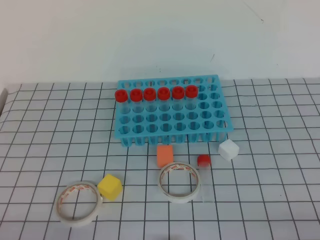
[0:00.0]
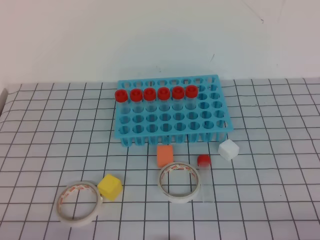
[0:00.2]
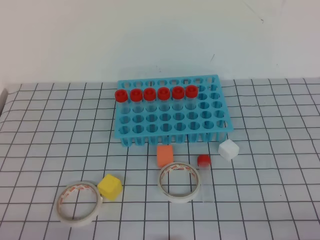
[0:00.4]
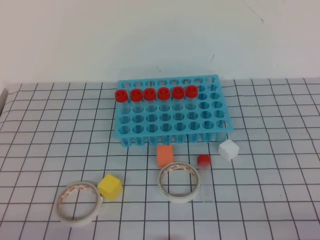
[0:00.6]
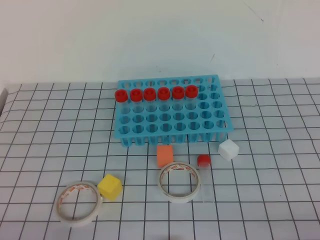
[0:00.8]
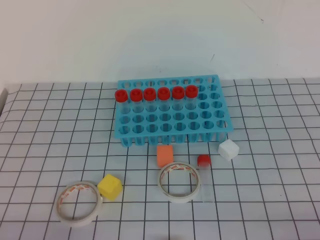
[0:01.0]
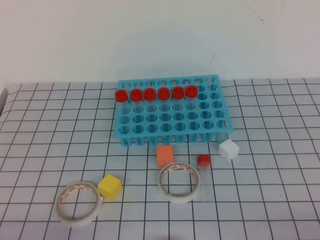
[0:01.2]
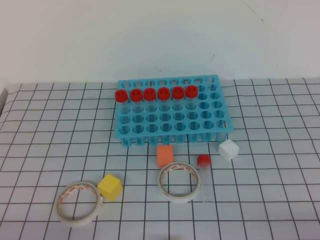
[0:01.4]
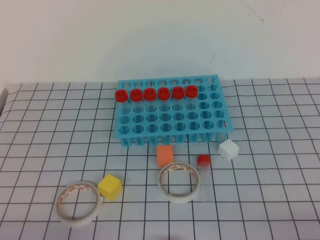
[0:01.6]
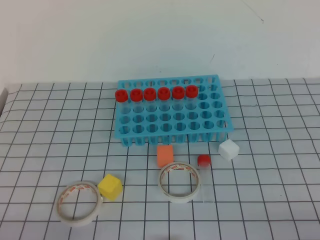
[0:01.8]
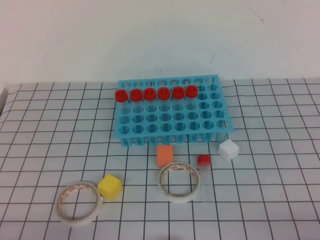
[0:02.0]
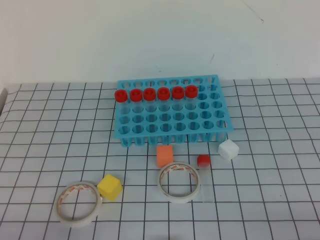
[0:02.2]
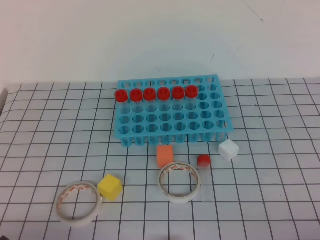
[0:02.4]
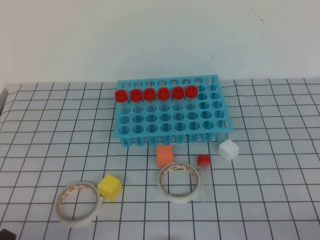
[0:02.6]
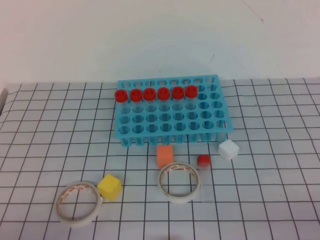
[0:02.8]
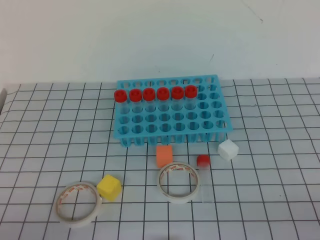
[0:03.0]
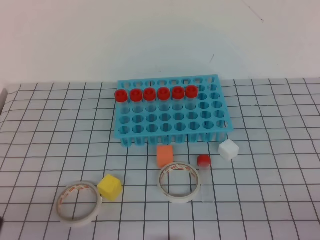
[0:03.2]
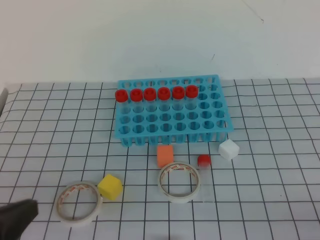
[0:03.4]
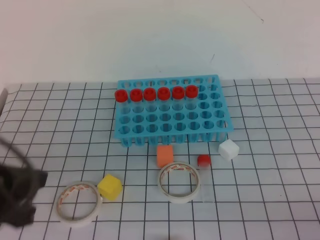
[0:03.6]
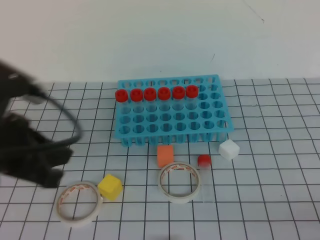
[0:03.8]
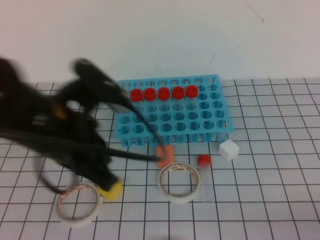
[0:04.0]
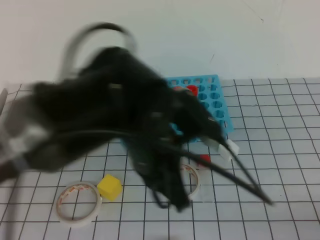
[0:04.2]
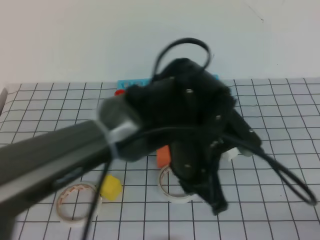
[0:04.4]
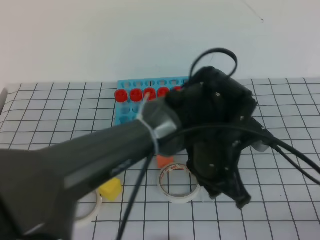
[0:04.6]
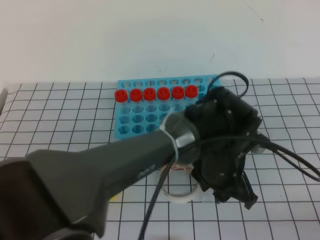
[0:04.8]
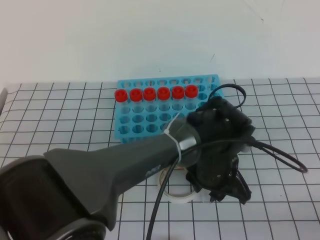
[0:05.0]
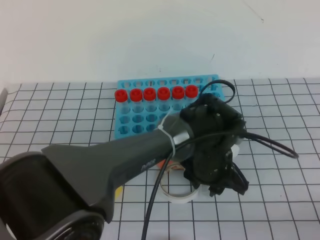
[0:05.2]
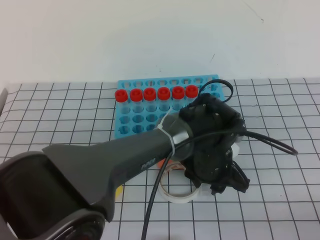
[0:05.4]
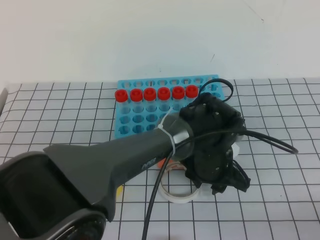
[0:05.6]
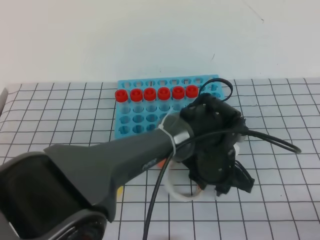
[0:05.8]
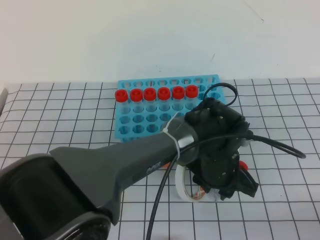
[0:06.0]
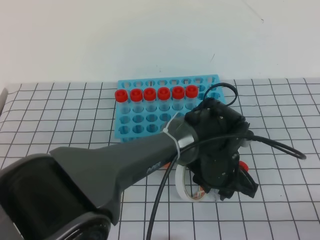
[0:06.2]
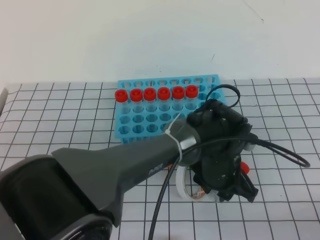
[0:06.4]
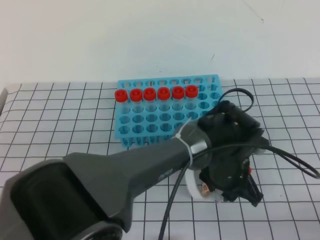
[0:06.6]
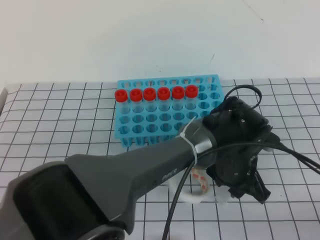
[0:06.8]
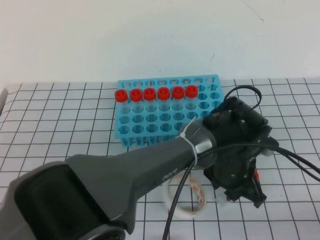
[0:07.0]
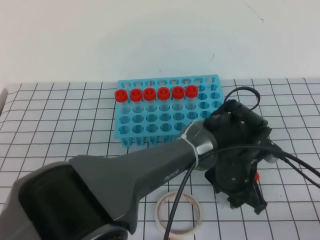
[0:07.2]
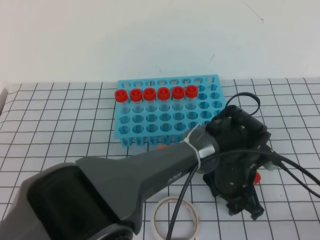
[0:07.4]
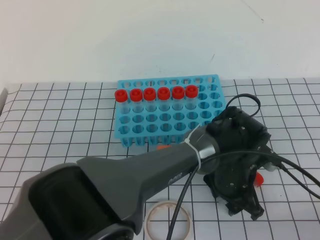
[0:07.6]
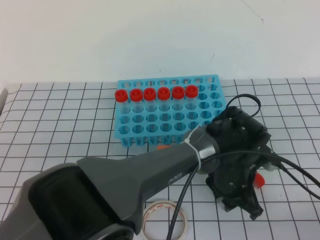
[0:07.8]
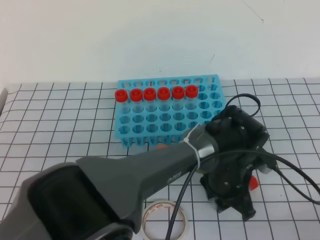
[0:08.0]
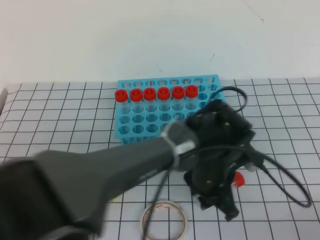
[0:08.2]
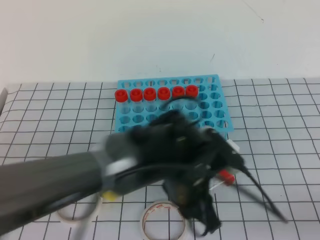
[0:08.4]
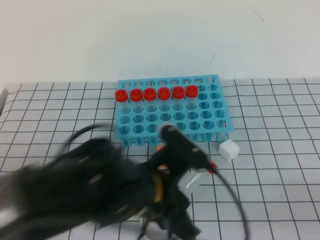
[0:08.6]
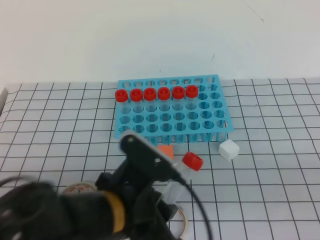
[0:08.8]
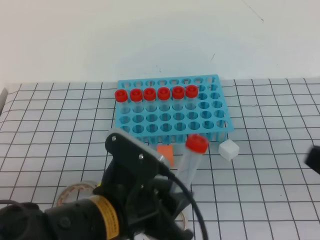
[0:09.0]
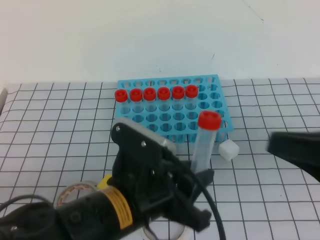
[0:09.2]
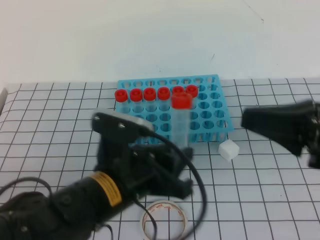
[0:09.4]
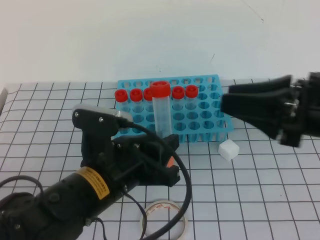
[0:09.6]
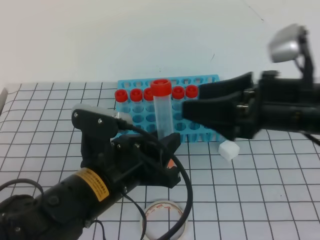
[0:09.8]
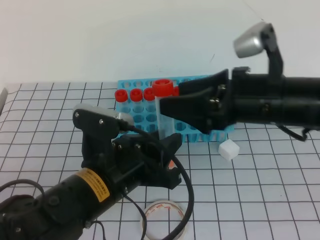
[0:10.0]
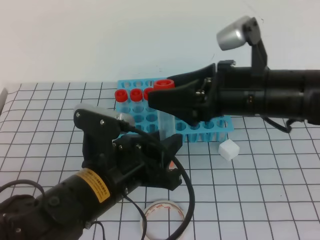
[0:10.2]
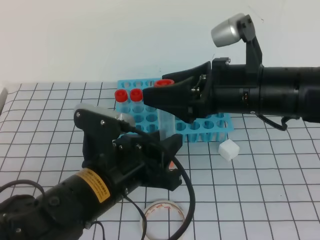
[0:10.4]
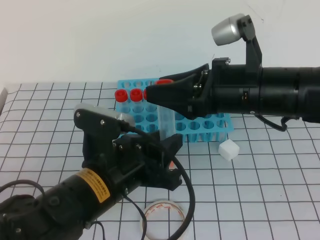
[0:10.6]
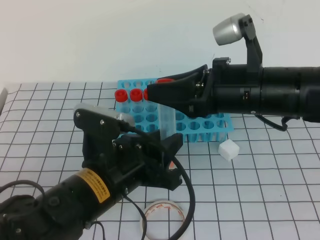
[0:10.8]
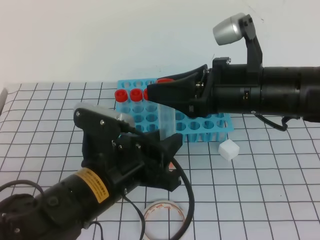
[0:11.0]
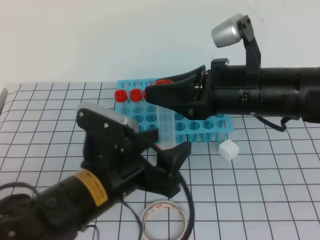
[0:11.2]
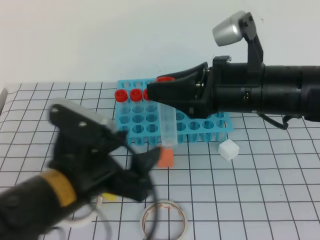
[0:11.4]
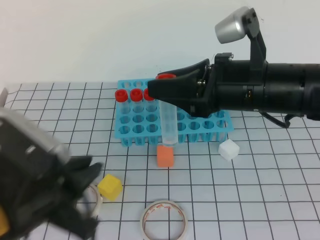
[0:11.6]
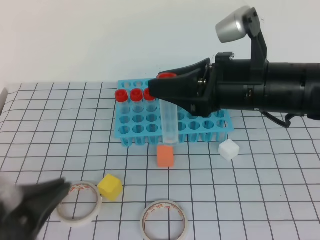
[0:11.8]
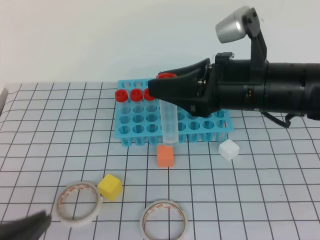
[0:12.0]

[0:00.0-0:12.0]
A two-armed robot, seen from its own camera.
0:00.0 to 0:01.6: Neither gripper changes place.
0:03.0 to 0:04.4: The left gripper goes some 35 cm to the right and forward.
0:04.4 to 0:06.0: The left gripper shifts about 15 cm downward, to the right and forward, and opens up.
0:07.6 to 0:09.0: The right gripper moves upward and forward, approximately 10 cm; the left gripper goes about 25 cm to the left, backward and upward.
0:09.0 to 0:10.4: The right gripper is displaced forward and to the left by about 20 cm, and opens.
0:10.4 to 0:12.0: The right gripper closes its fingers, while the left gripper heads backward and to the left, covering roughly 20 cm, and closes up.

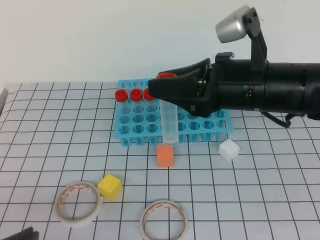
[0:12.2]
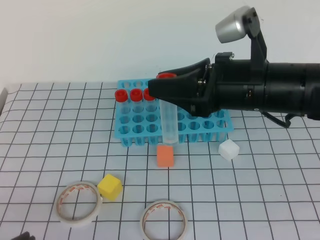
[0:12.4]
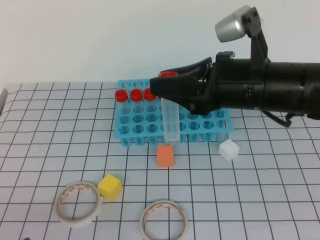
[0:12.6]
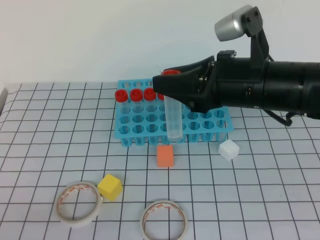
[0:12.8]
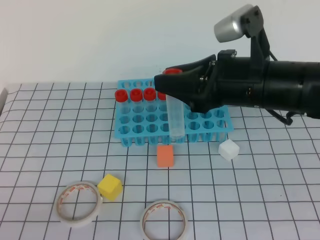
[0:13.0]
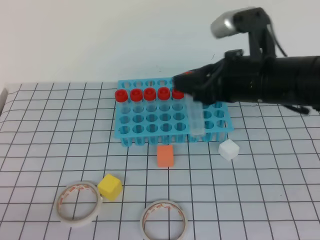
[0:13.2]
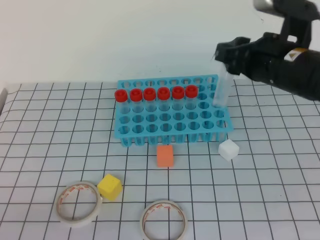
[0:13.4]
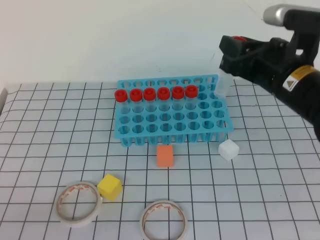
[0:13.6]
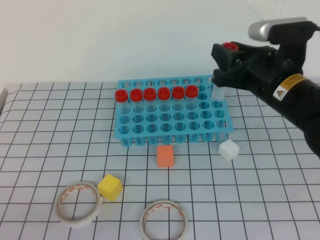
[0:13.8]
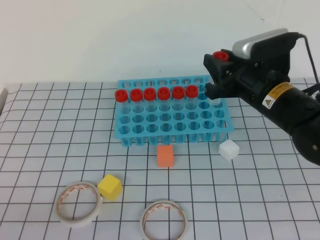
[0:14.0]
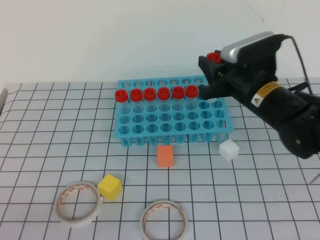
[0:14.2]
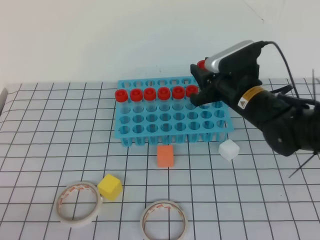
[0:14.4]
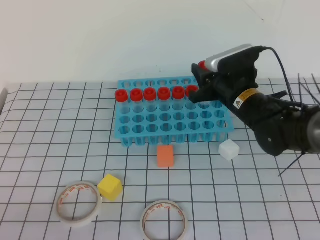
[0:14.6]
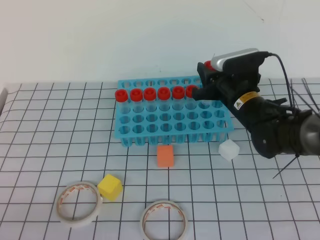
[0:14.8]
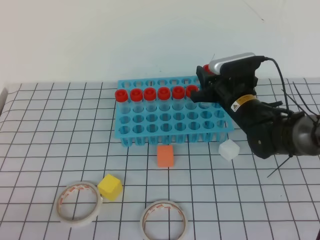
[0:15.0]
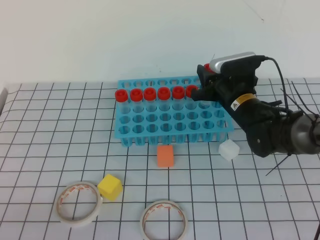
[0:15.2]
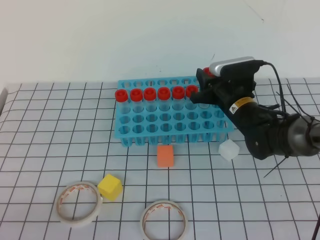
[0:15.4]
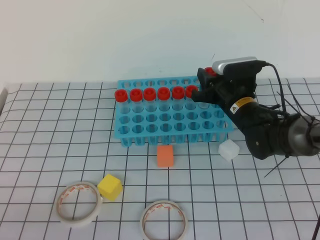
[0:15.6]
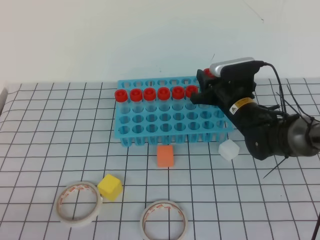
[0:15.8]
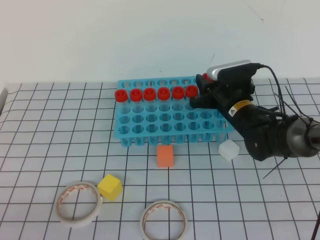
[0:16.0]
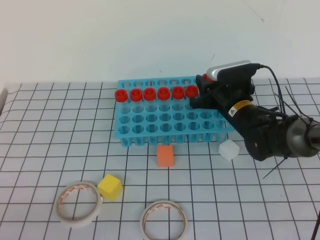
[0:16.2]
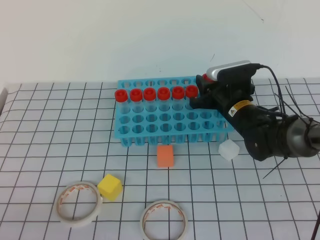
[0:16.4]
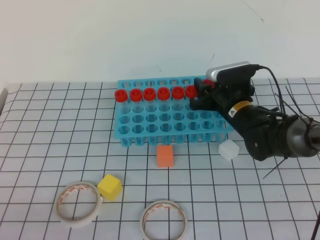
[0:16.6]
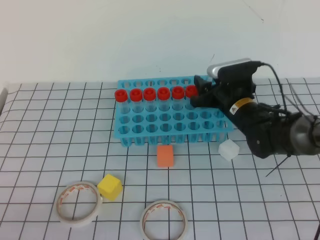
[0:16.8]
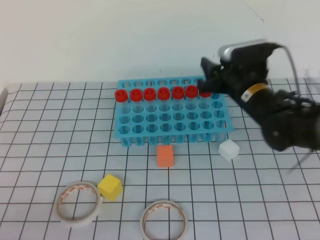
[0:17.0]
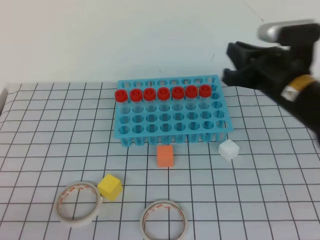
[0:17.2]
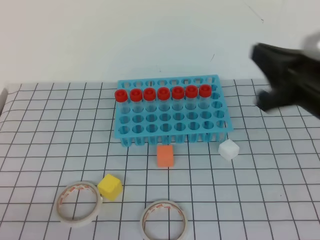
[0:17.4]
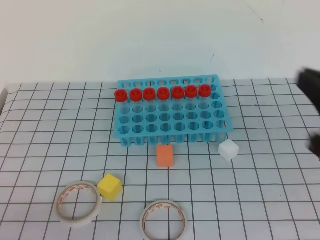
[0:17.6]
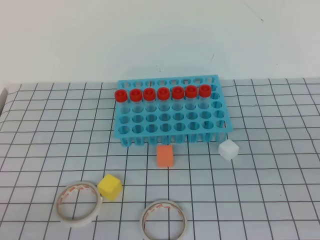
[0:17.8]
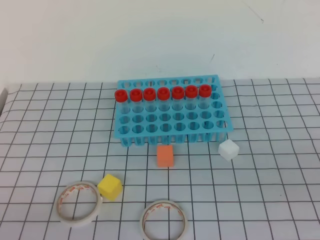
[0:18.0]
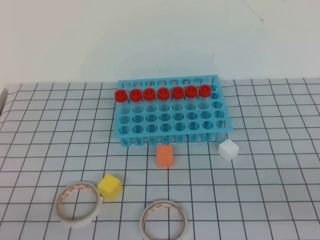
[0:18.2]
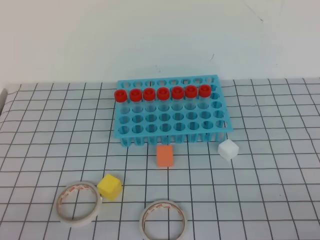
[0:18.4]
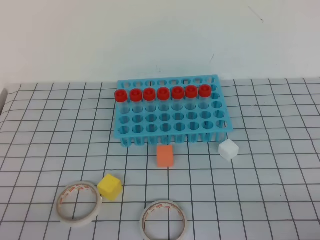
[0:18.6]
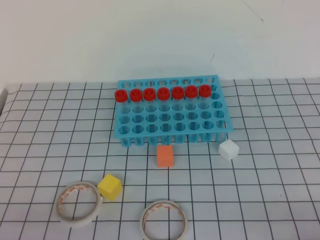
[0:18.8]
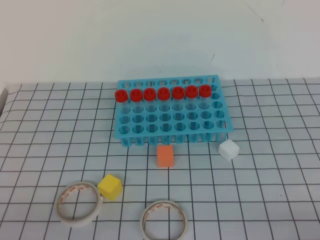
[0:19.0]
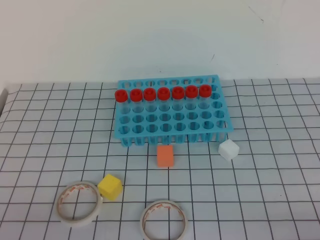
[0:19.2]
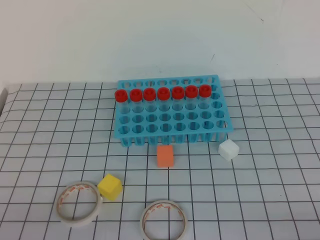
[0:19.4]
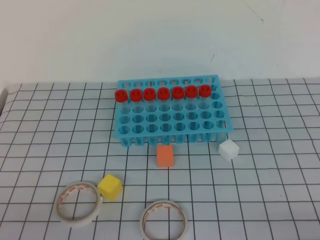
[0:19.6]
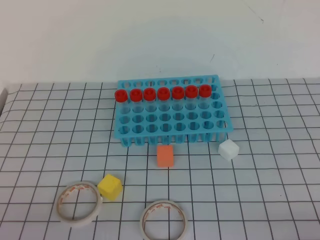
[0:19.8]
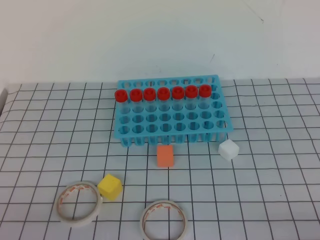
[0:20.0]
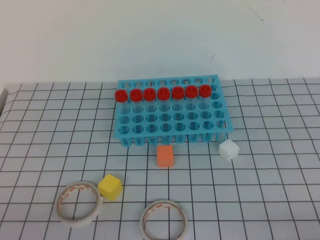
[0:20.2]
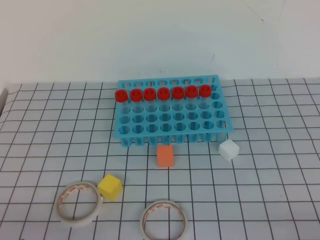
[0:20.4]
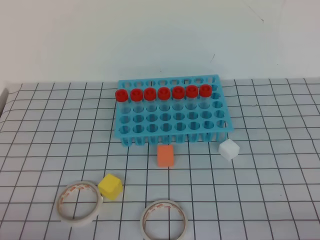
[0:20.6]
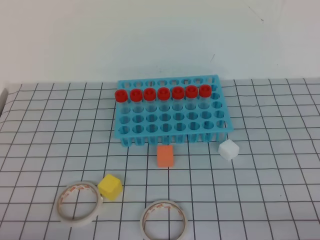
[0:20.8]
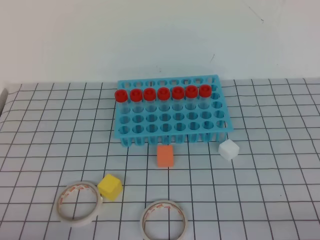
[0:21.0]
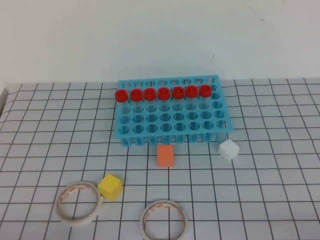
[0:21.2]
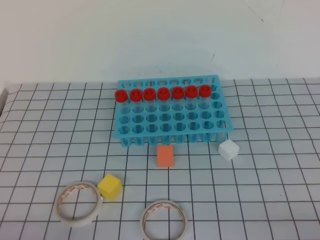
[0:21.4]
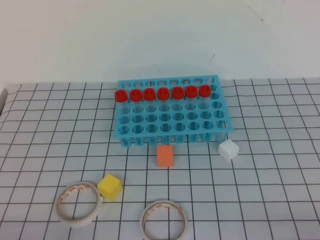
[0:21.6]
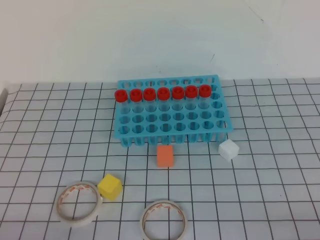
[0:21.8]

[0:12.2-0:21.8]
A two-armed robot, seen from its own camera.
0:12.2 to 0:13.8: The right gripper ends up roughly 5 cm from where it was.
0:13.8 to 0:15.4: The right gripper moves downward and forward, approximately 15 cm.
0:15.4 to 0:17.0: The right gripper heads upward, covering about 5 cm.
0:17.0 to 0:18.6: The right gripper heads backward and to the right, covering about 40 cm, and closes up.
